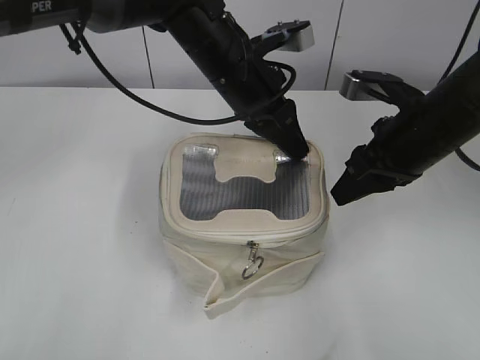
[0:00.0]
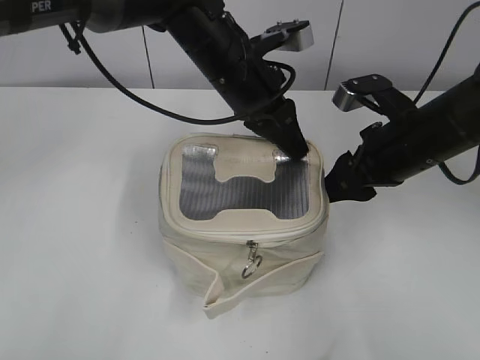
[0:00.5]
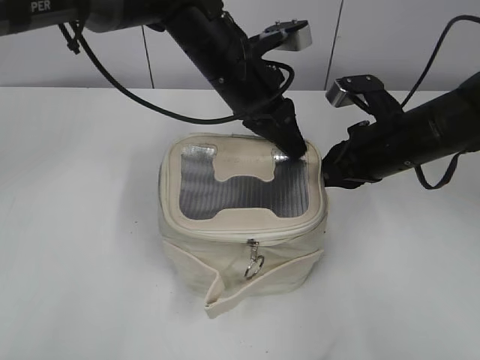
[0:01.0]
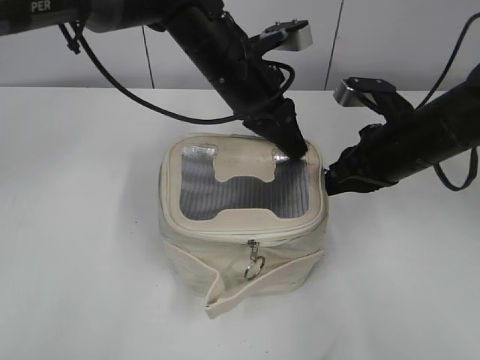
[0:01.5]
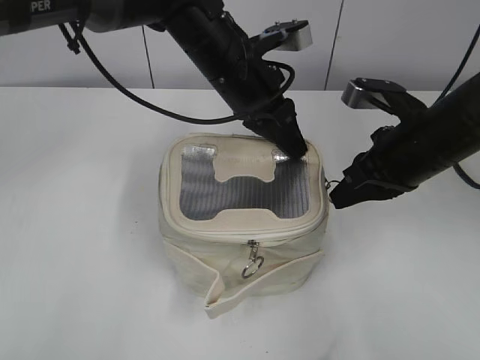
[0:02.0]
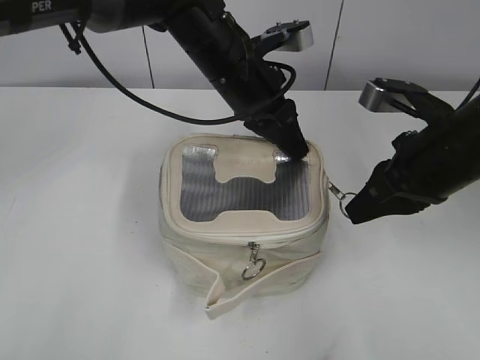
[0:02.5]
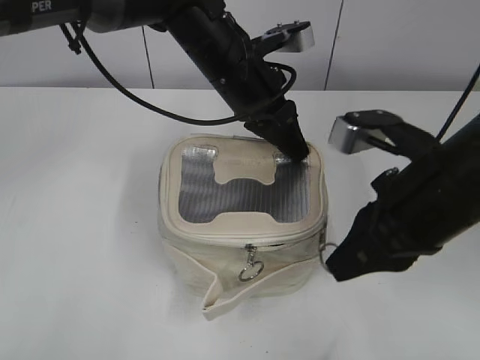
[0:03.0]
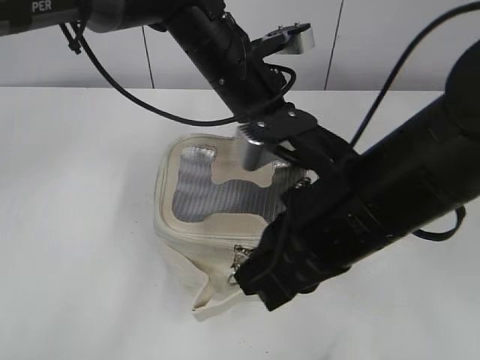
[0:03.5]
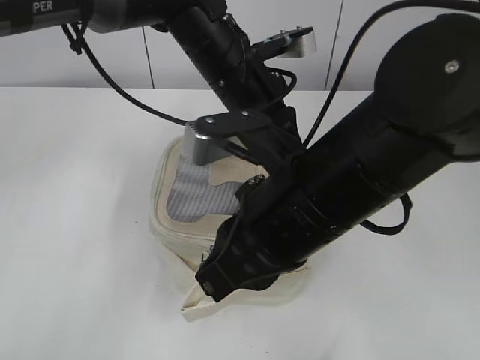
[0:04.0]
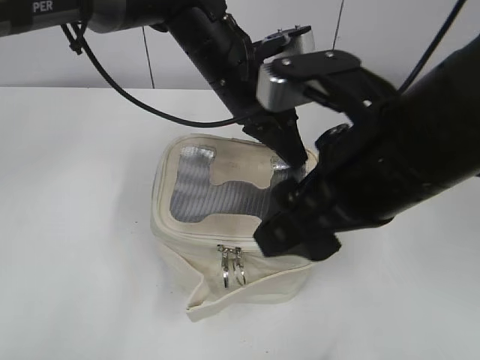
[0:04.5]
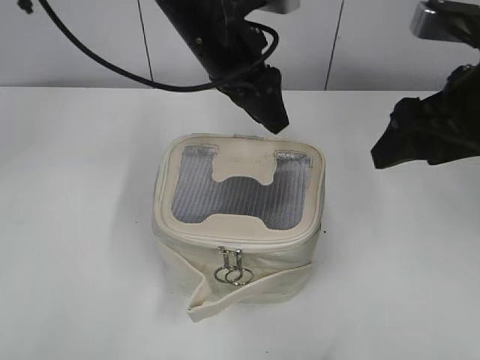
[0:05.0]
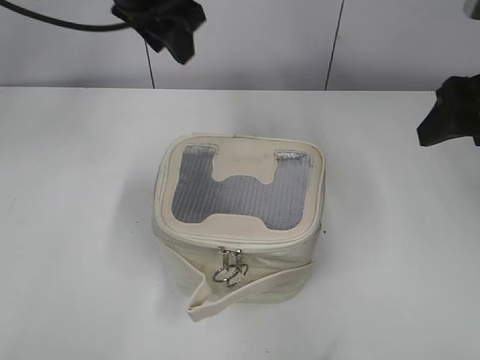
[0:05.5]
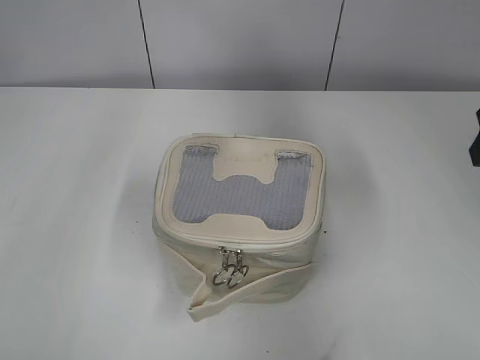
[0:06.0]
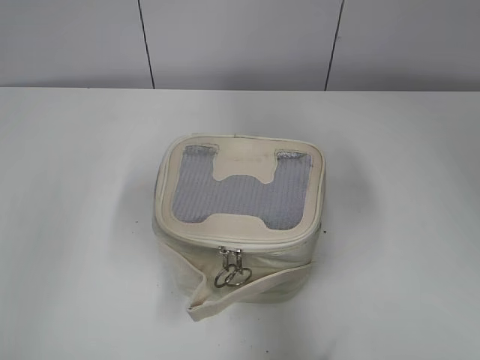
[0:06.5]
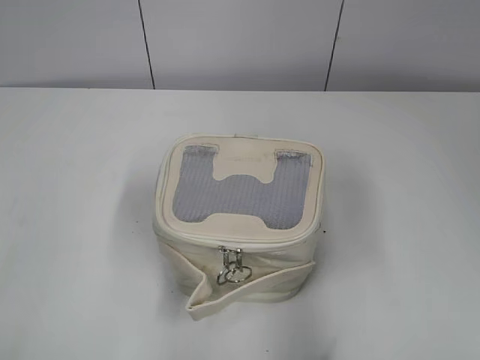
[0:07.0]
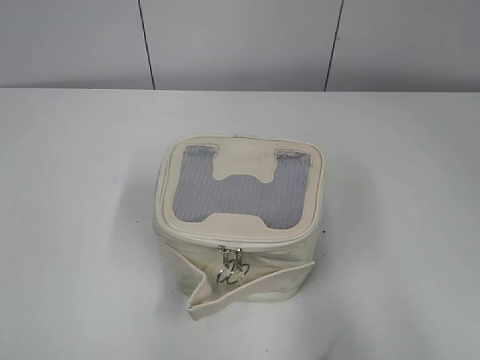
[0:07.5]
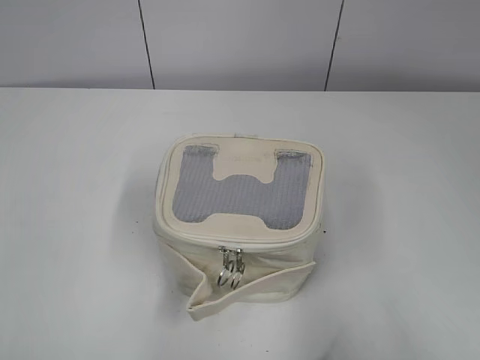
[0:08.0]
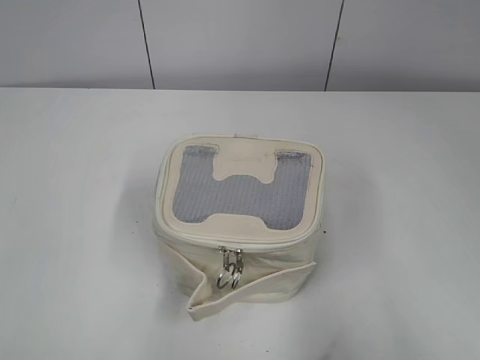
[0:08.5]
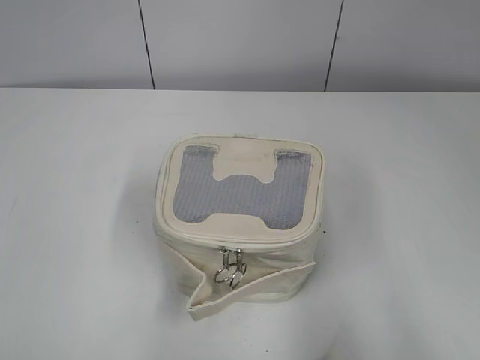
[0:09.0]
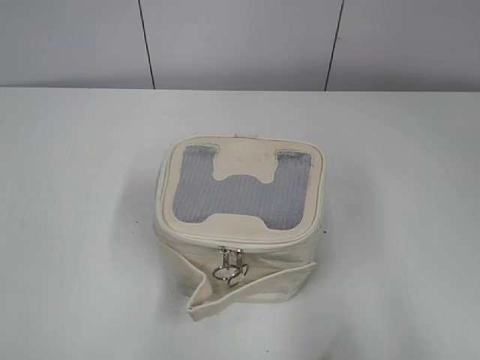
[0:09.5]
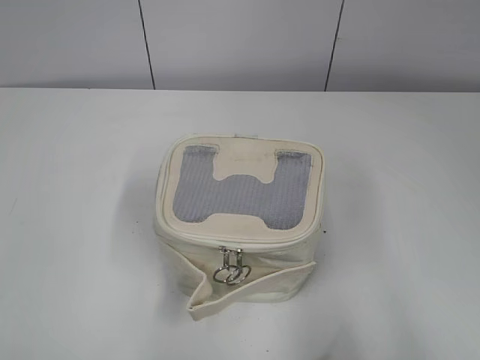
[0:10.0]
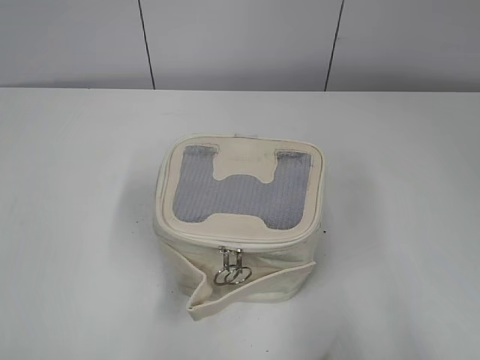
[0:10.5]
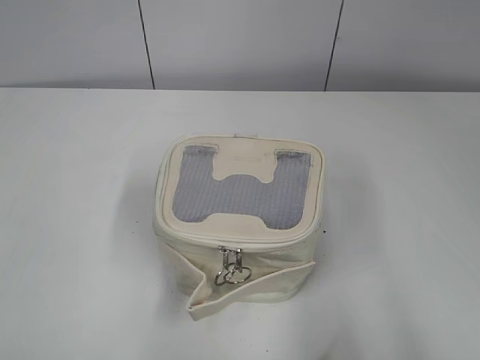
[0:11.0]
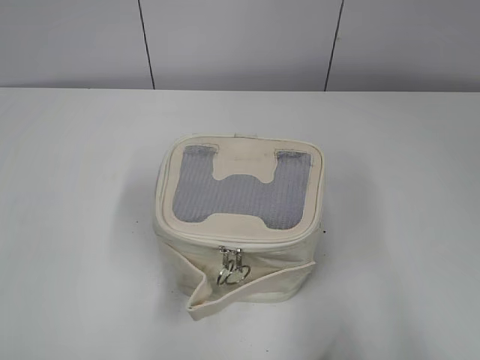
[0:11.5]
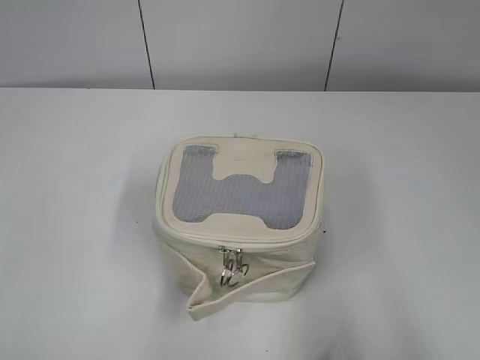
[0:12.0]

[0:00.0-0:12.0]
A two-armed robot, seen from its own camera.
Step, 0:00.0 to 0:04.0: Zip up the bag with your right hand.
0:00.0 to 0:02.0: The right gripper opens, then closes again.
0:02.0 to 0:04.0: The right gripper goes about 20 cm to the left and backward.
0:04.0 to 0:06.0: The right gripper is displaced to the right by roughly 20 cm, and opens up, while the left gripper heads to the left and upward, covering roughly 30 cm, and opens its fingers.
0:06.0 to 0:08.0: Both grippers move backward, roughly 30 cm.
0:10.0 to 0:12.0: The two grippers keep their place.
